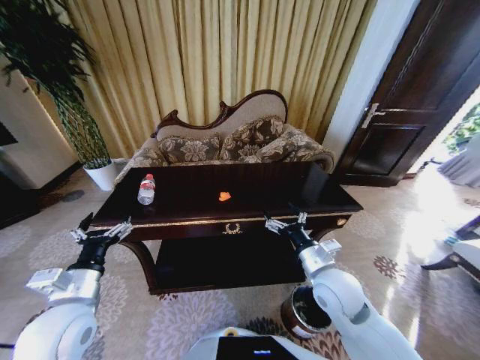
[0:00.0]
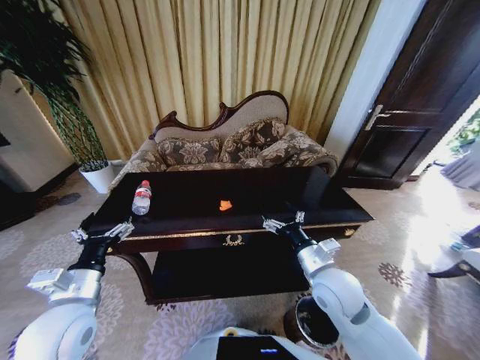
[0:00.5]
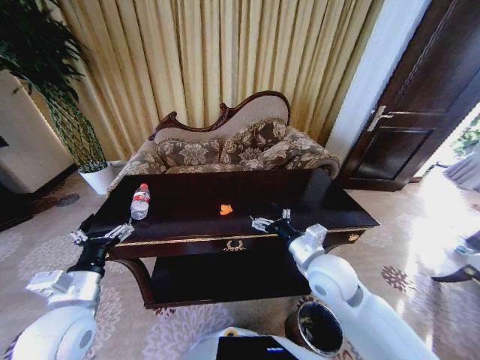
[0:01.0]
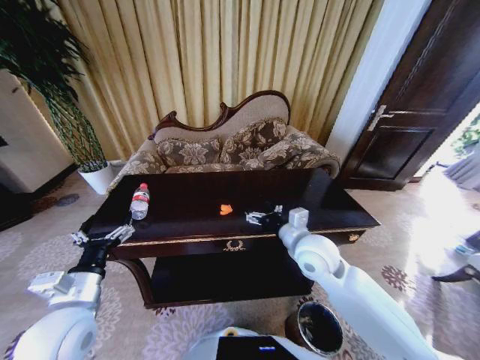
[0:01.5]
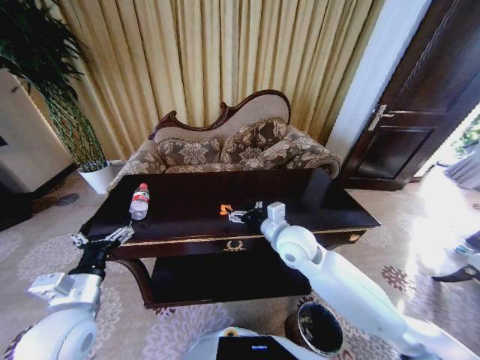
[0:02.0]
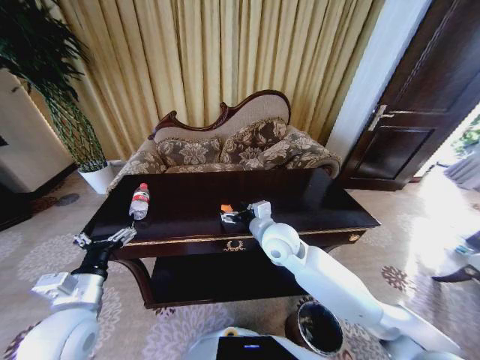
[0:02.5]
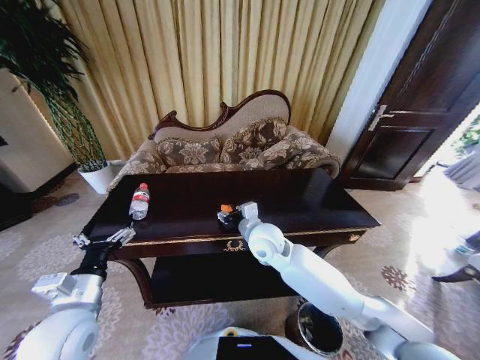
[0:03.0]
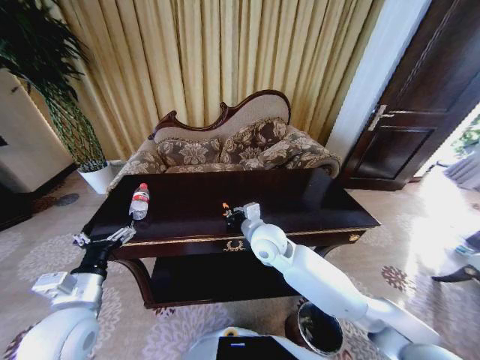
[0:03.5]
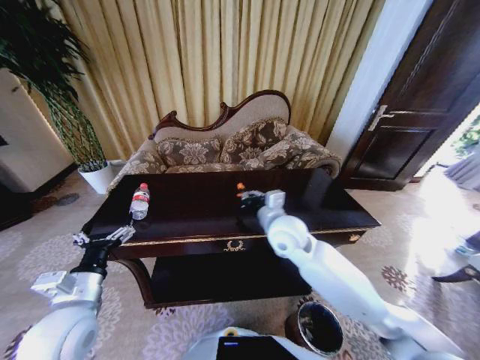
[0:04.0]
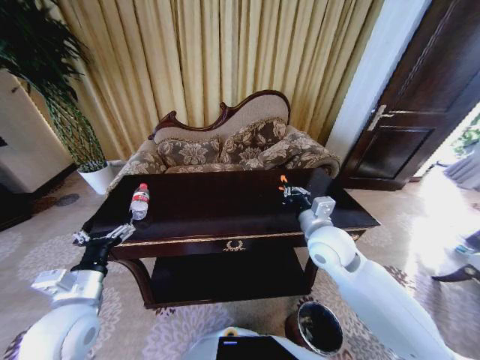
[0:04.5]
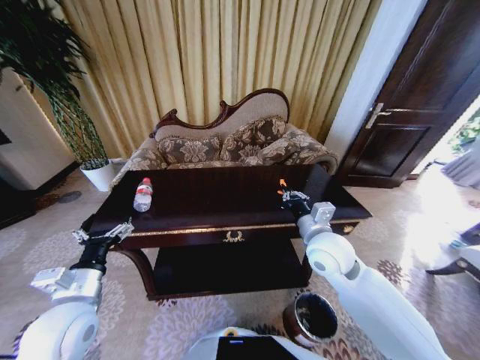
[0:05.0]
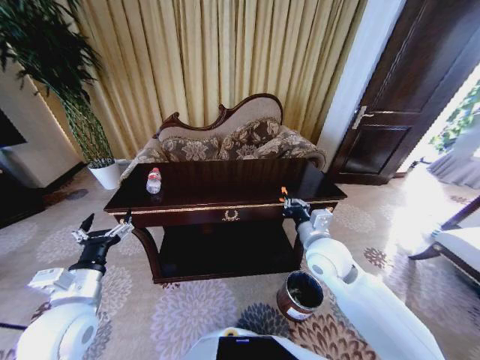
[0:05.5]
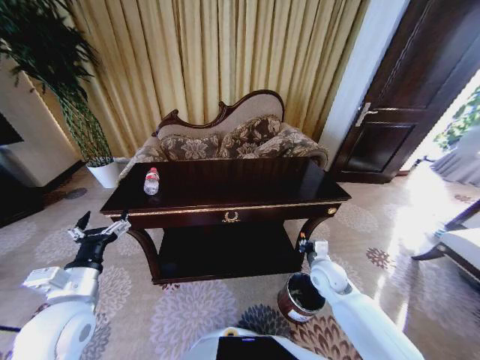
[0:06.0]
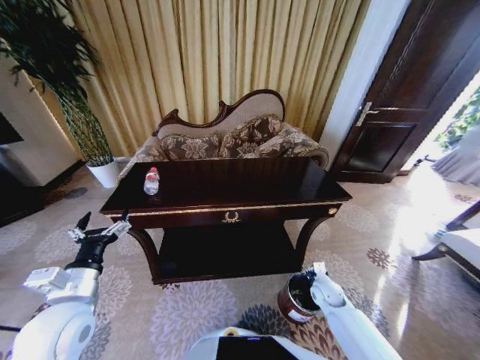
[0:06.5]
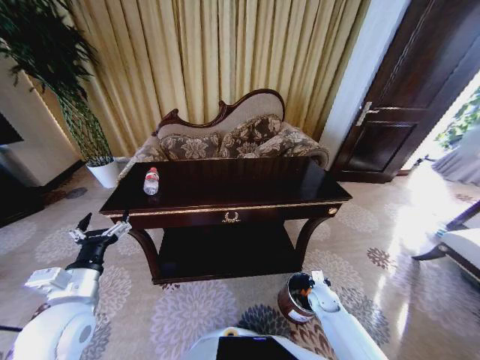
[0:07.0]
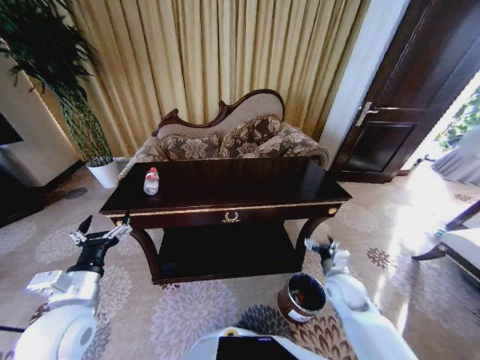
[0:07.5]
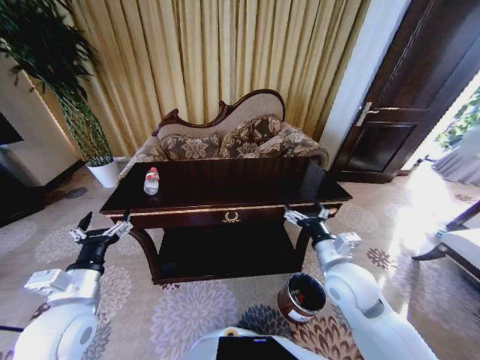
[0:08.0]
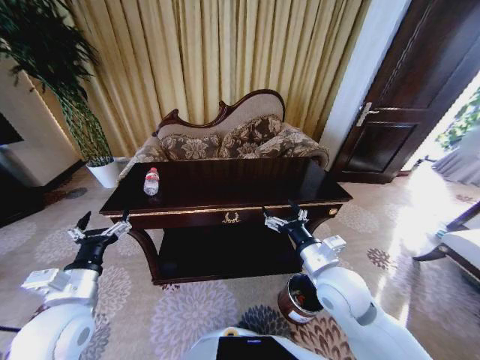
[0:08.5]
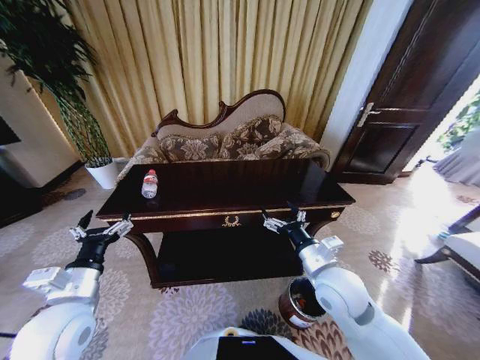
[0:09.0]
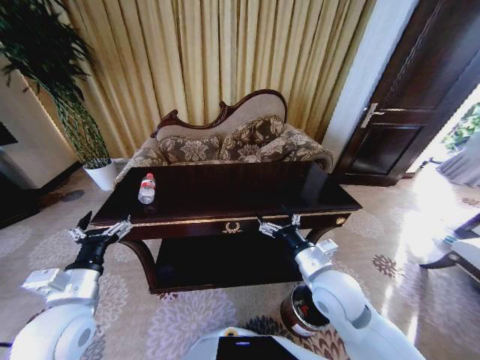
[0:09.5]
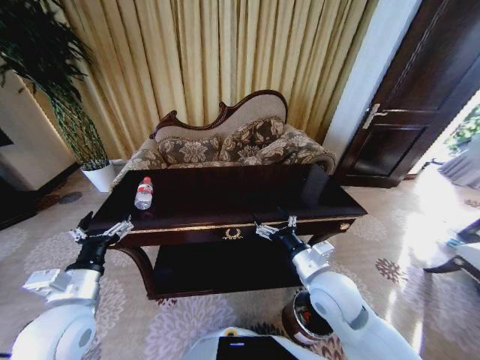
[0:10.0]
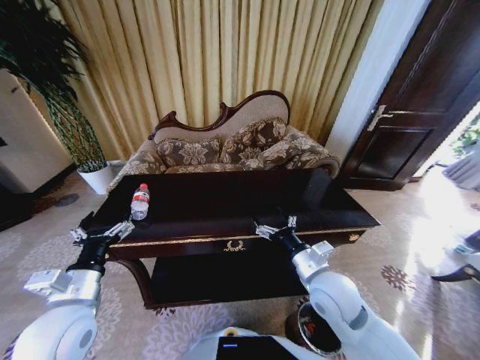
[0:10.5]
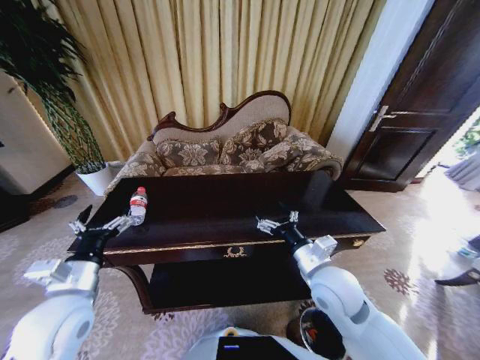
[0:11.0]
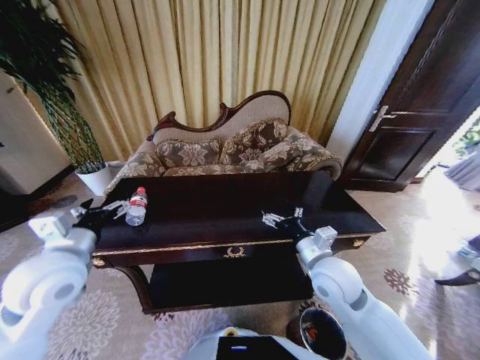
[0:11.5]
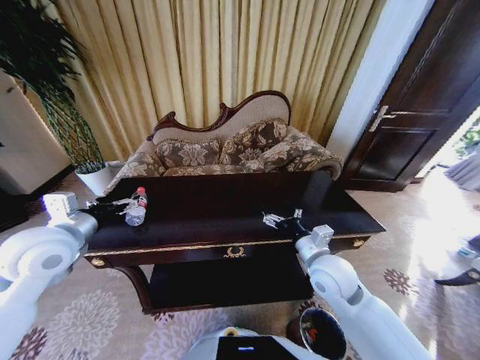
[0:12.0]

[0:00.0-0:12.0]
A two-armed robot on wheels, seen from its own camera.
Task of the whole recording: Move to the front of the table and place the trash on the table into the trash bin.
0:00.0 to 0:02.0: The right gripper travels forward and to the left by roughly 10 cm.
0:02.0 to 0:04.0: The right gripper closes.
0:04.0 to 0:06.0: The right gripper is displaced downward and to the right by approximately 25 cm.
0:06.0 to 0:08.0: The right gripper moves upward and backward, some 15 cm, and opens up.
0:10.0 to 0:12.0: The left gripper heads forward and upward, covering approximately 15 cm.

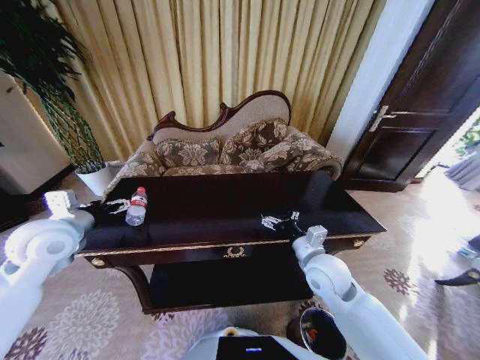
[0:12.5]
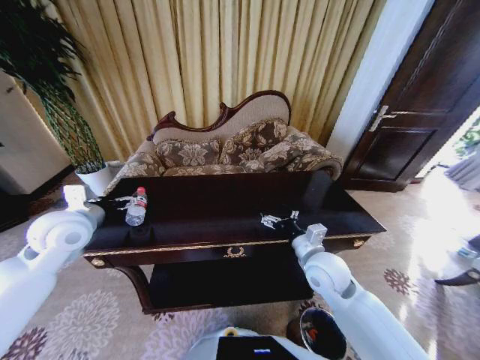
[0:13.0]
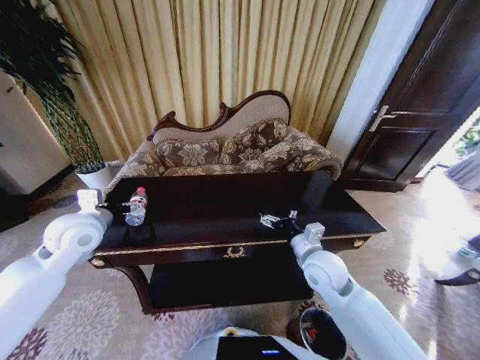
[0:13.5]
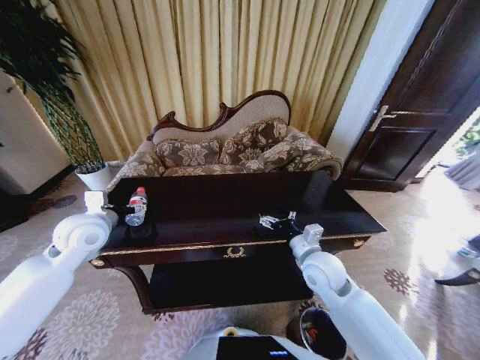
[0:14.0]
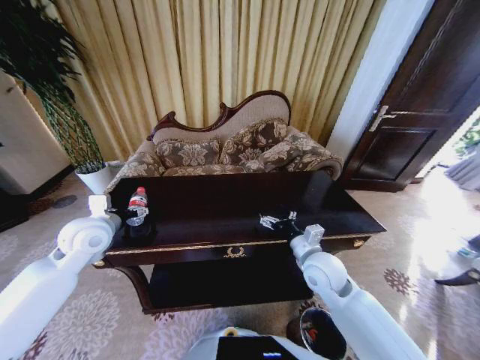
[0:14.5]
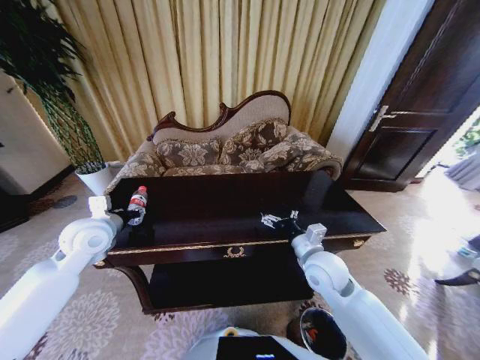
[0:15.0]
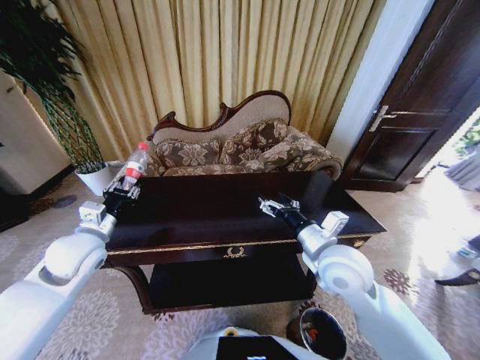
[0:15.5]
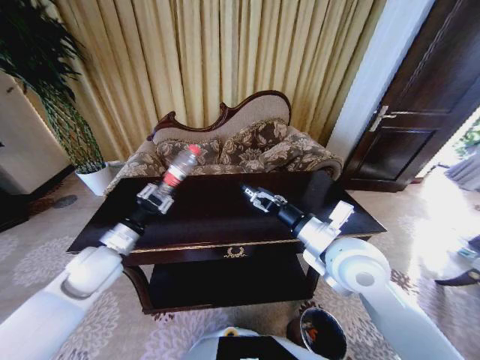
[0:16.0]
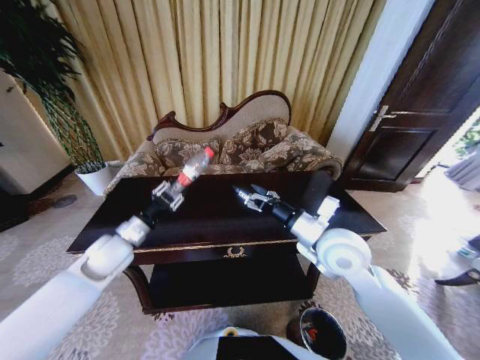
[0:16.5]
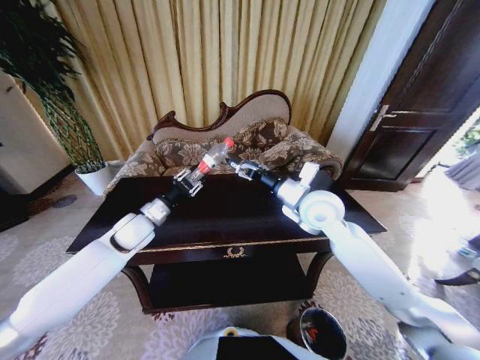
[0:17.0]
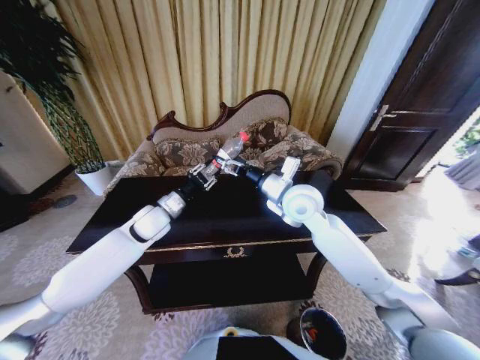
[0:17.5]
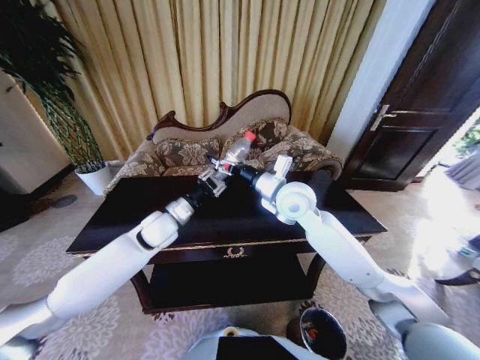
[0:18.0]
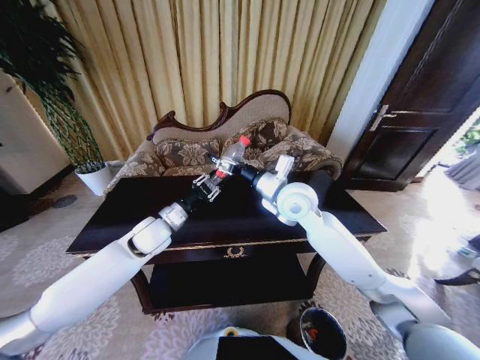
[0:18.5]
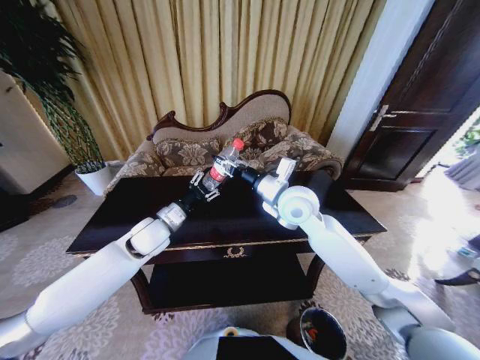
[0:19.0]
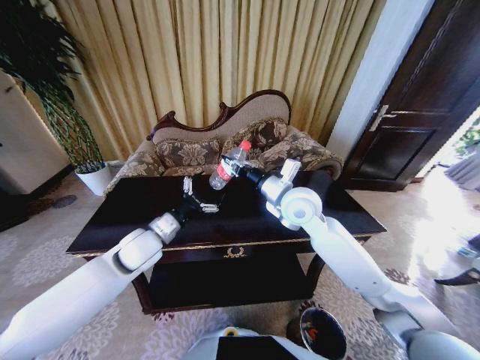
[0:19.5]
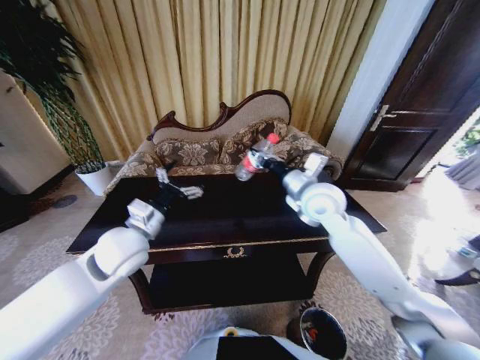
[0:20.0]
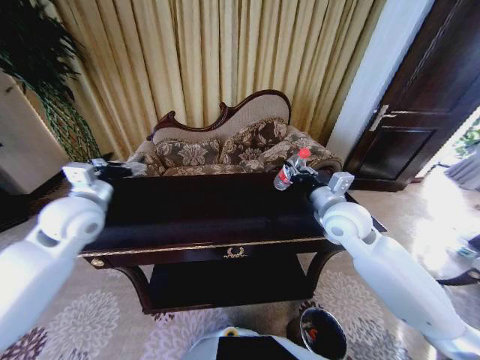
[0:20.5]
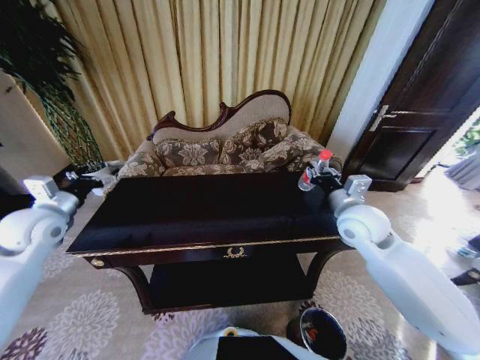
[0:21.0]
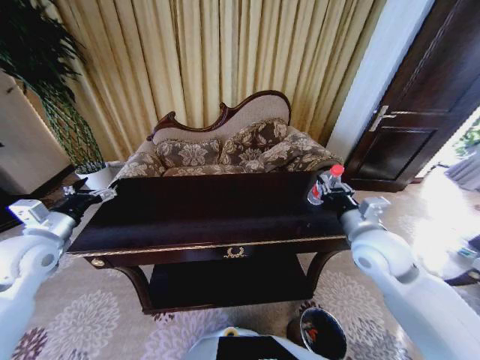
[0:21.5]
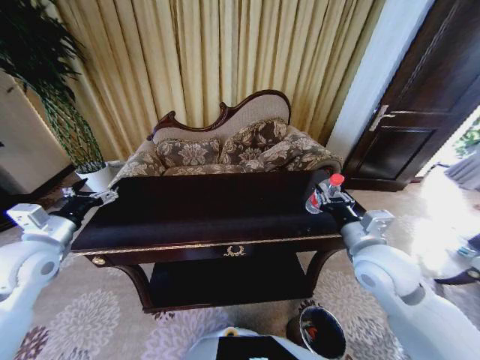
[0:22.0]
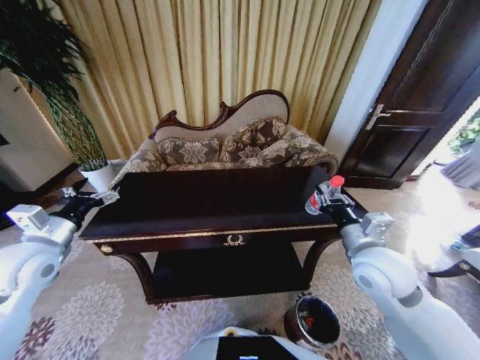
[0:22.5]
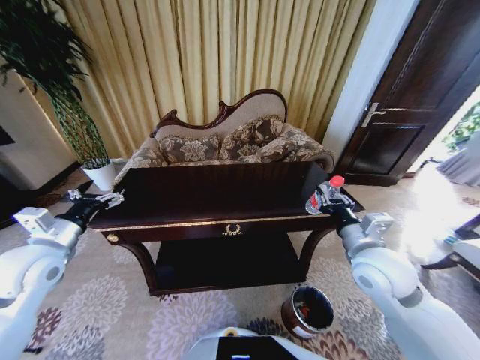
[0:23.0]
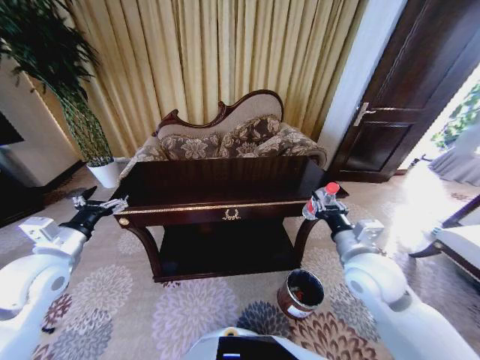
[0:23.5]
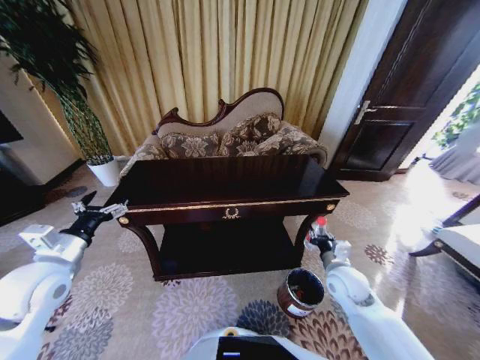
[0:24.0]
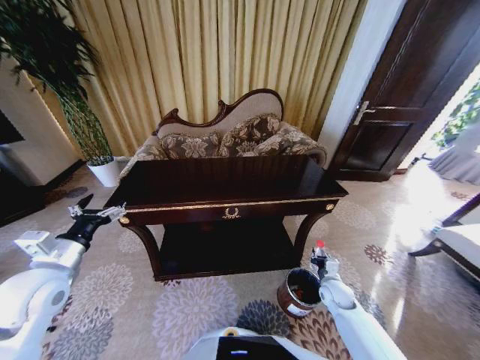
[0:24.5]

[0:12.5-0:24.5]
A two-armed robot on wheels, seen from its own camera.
Task of the whole recording: Move to the front of the table and place the trash on the table into the trash bin.
0:12.5 to 0:14.5: The left gripper moves roughly 5 cm.
0:14.5 to 0:16.5: The right gripper shifts roughly 10 cm upward, while the left gripper moves downward, about 5 cm, and closes its fingers.
0:16.5 to 0:18.5: The left gripper shifts roughly 10 cm to the right. Meanwhile the right gripper is displaced forward and to the left by about 15 cm.
0:18.5 to 0:20.5: The left gripper shifts roughly 15 cm to the left and upward, and opens its fingers, while the right gripper travels to the right by approximately 10 cm, and closes its fingers.
0:20.5 to 0:22.5: The left gripper goes approximately 10 cm backward and to the left. The right gripper travels backward by about 10 cm.
0:22.5 to 0:24.5: The left gripper moves roughly 5 cm, while the right gripper heads downward, covering about 30 cm.

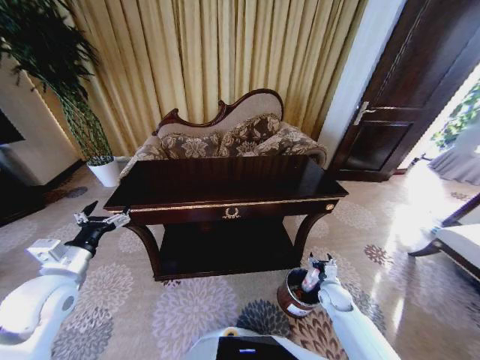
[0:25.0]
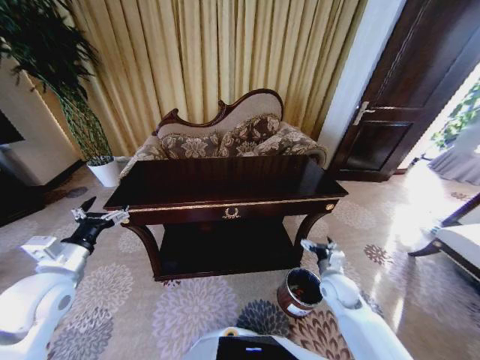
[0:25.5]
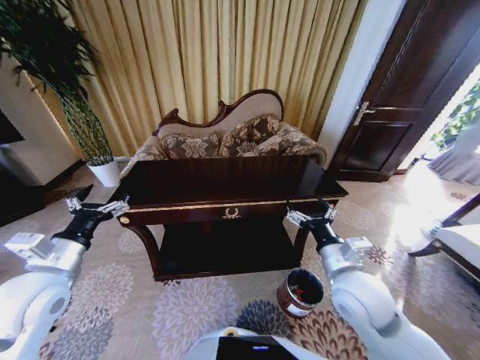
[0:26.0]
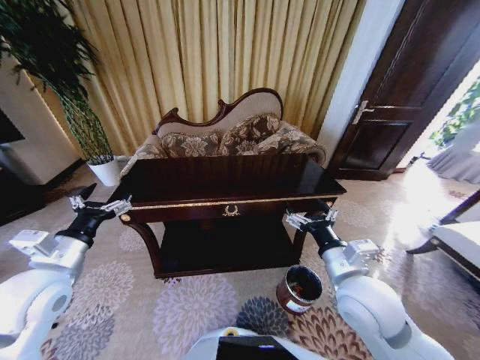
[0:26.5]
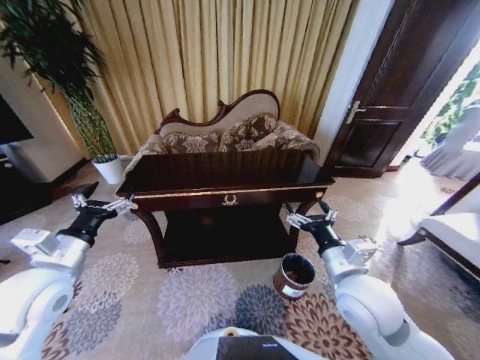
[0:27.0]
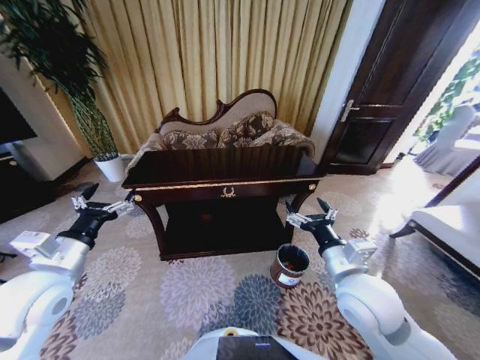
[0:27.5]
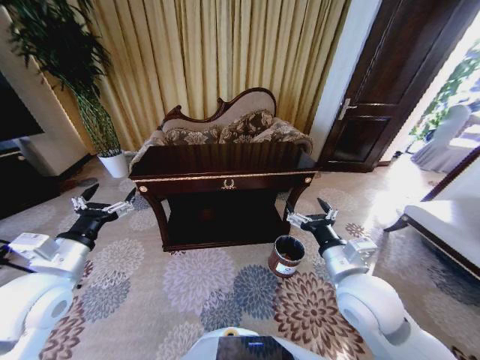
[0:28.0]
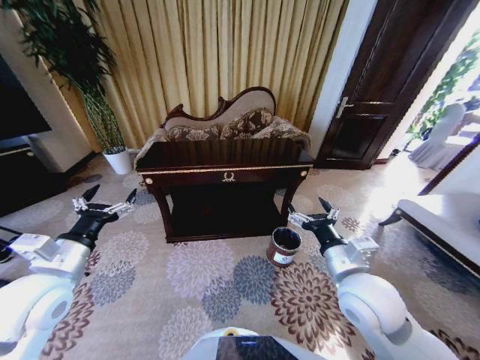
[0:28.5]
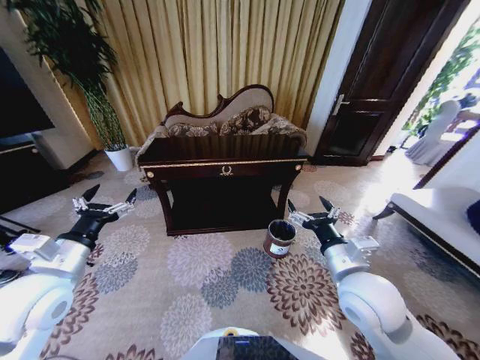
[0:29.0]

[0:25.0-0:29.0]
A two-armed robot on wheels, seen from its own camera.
Task of the whole recording: Move to the front of the table and place the trash on the table into the trash bin.
0:25.0 to 0:27.0: The left gripper ends up some 5 cm from where it was. The right gripper is displaced upward and to the left by about 35 cm.
